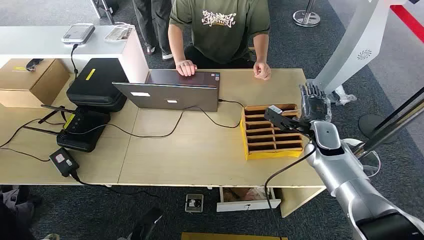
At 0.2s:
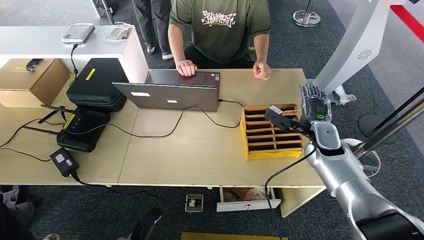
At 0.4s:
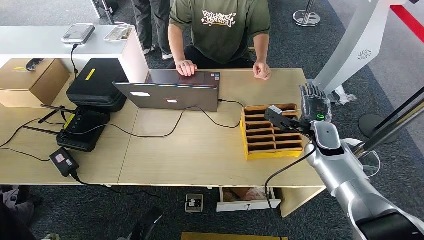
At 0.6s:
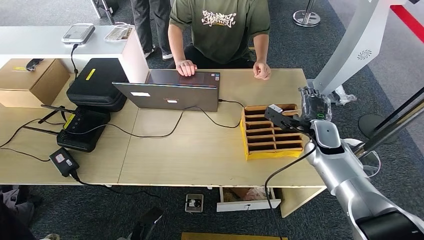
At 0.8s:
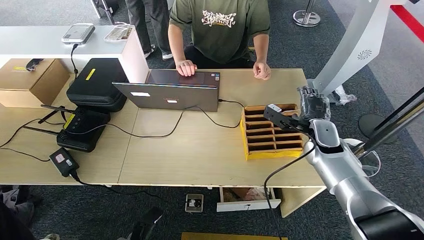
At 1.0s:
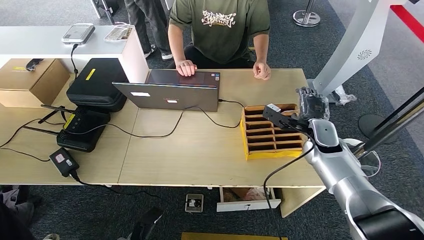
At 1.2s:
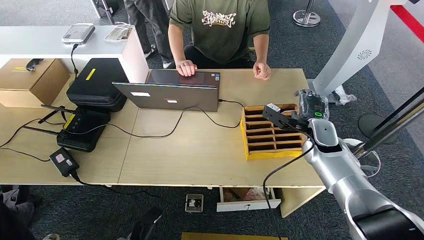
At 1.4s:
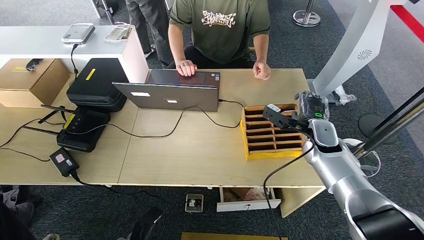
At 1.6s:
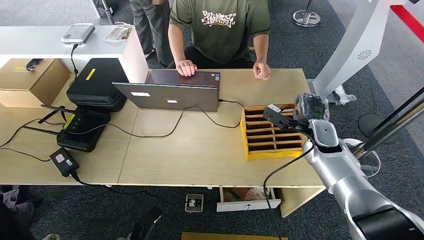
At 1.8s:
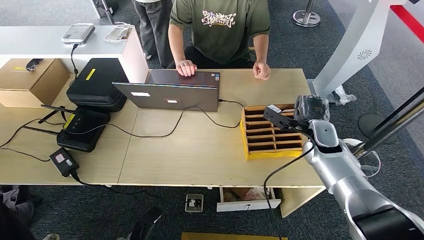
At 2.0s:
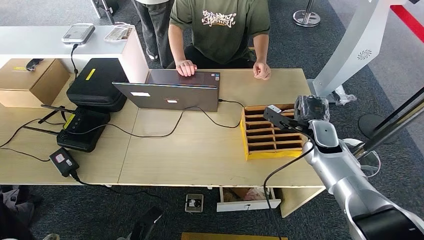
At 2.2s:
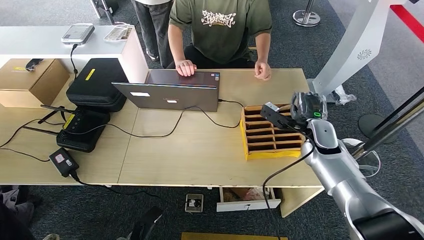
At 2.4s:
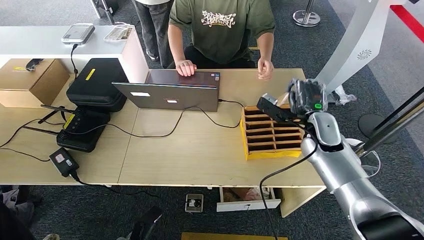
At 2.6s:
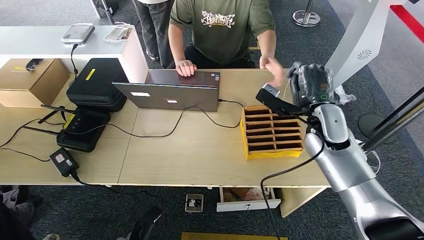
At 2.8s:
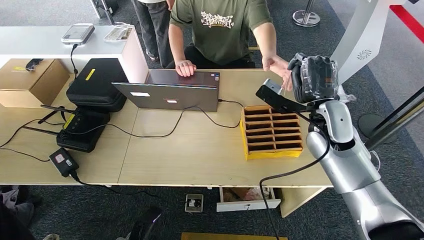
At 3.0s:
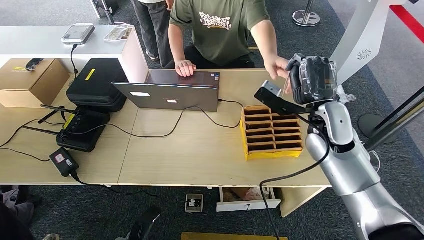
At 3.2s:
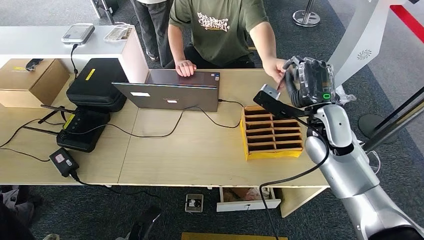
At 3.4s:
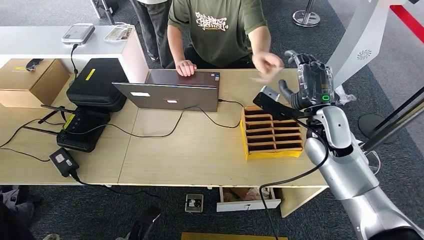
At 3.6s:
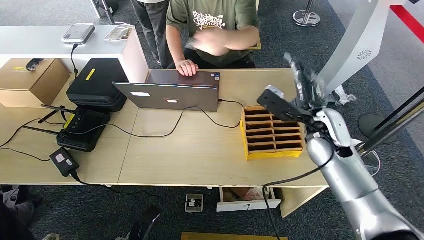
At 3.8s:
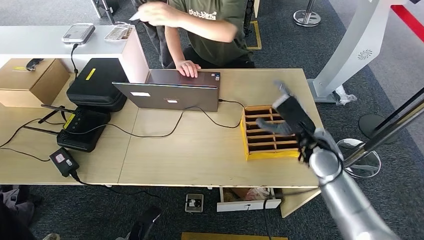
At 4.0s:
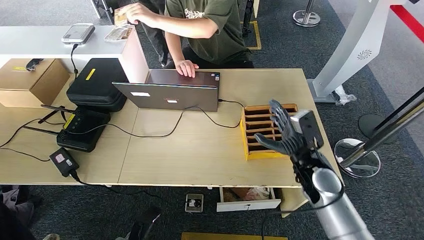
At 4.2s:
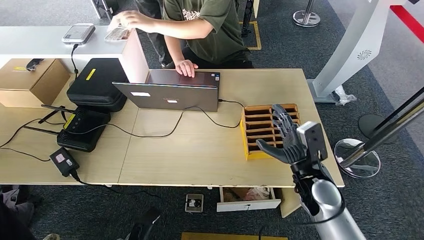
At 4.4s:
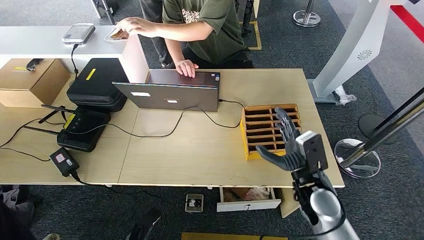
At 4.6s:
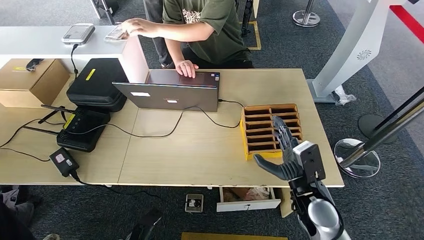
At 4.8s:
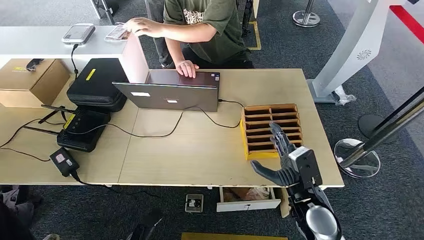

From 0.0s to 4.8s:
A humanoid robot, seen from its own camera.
Step, from 0.0s to 2.4s: Pick up the key card from the card box.
Step, from 2.8s to 4.6s: Hand the key card to the target.
From 1.6s to 3.2s: The right hand travels upward by roughly 10 cm.

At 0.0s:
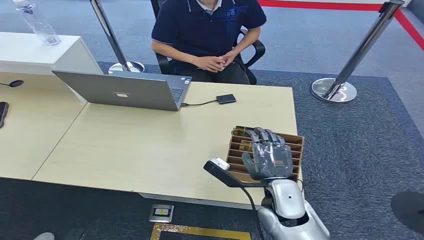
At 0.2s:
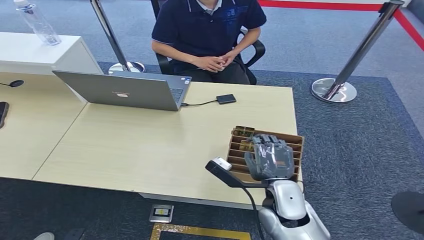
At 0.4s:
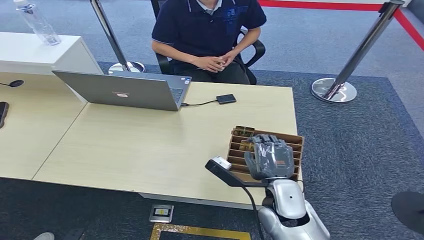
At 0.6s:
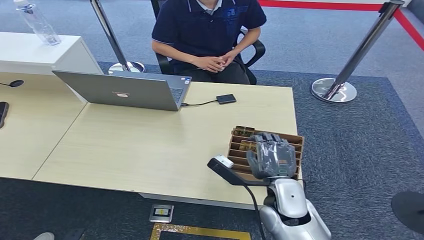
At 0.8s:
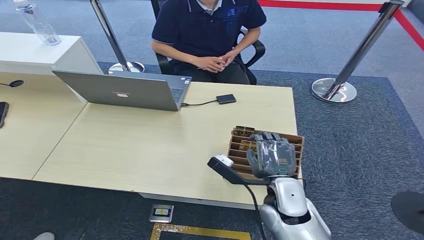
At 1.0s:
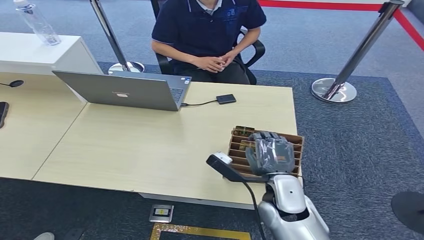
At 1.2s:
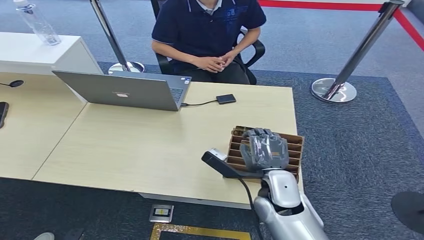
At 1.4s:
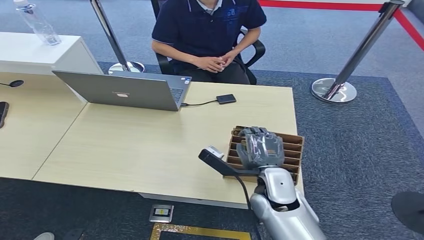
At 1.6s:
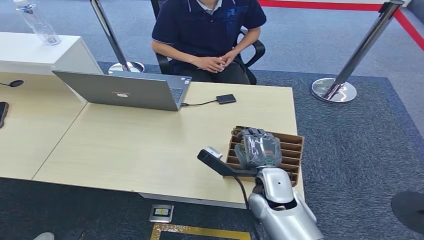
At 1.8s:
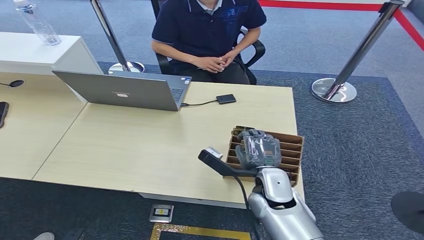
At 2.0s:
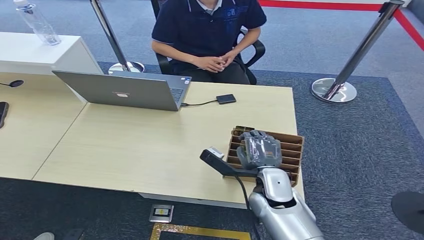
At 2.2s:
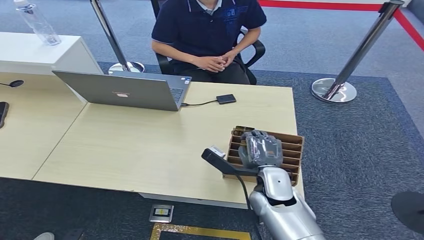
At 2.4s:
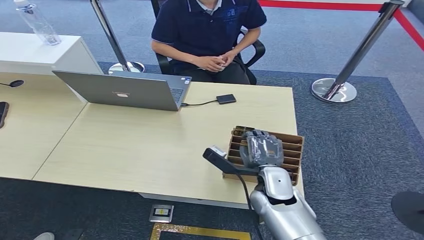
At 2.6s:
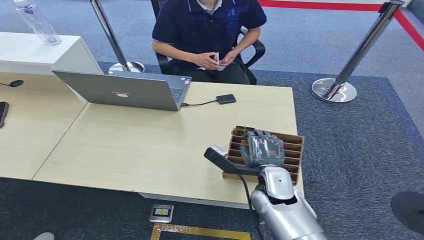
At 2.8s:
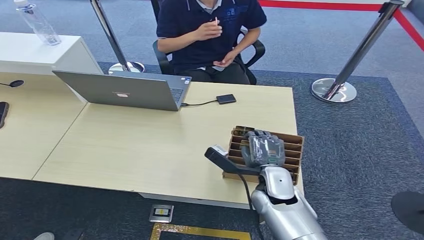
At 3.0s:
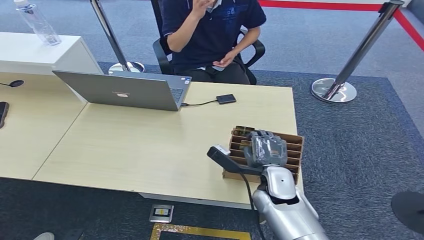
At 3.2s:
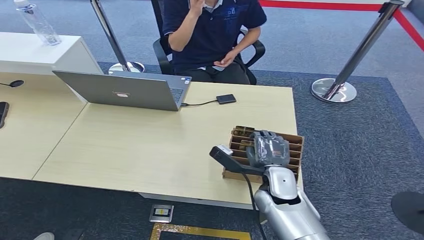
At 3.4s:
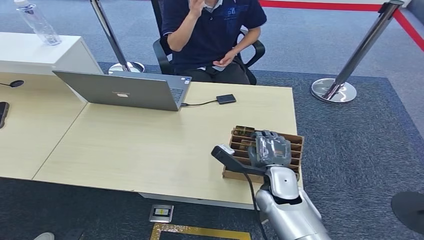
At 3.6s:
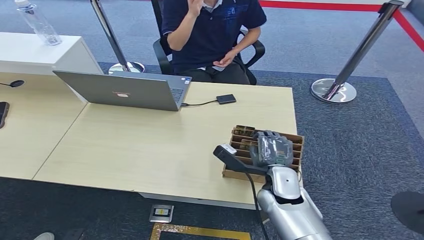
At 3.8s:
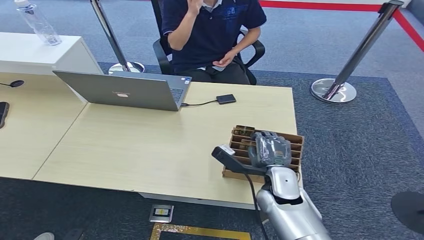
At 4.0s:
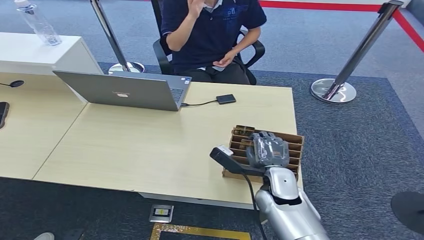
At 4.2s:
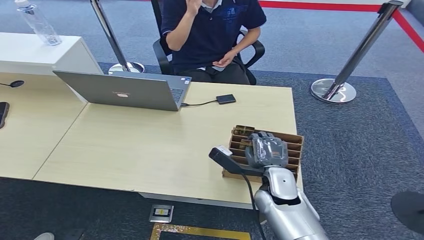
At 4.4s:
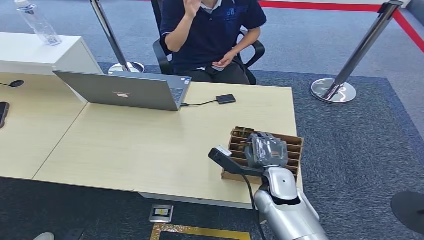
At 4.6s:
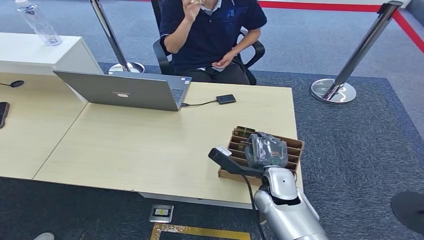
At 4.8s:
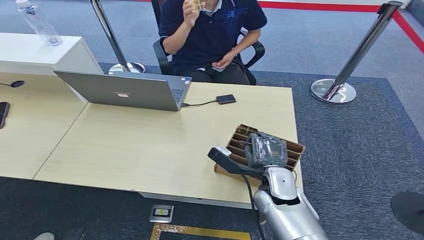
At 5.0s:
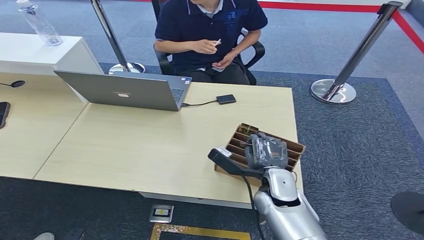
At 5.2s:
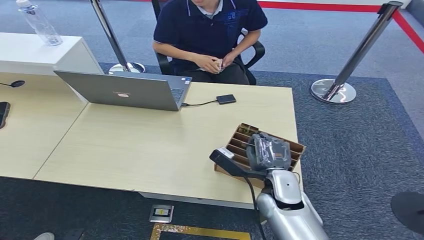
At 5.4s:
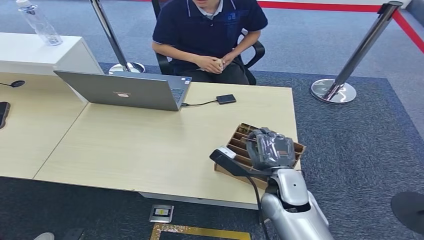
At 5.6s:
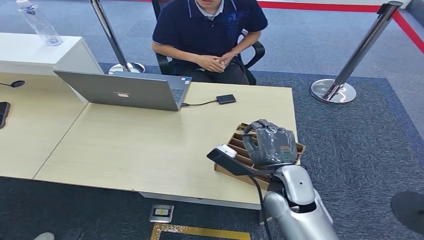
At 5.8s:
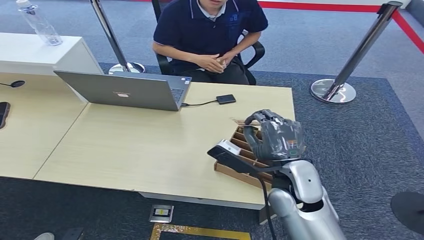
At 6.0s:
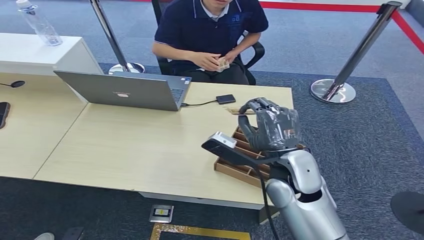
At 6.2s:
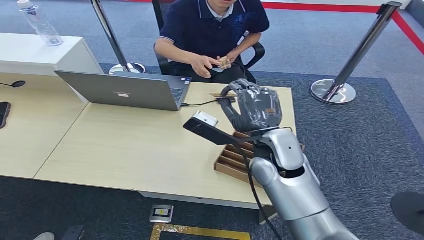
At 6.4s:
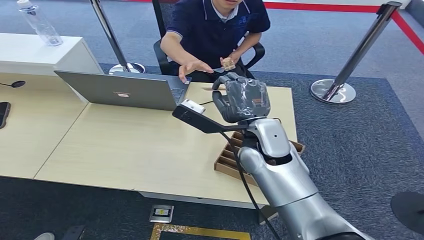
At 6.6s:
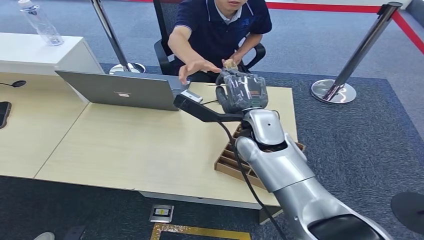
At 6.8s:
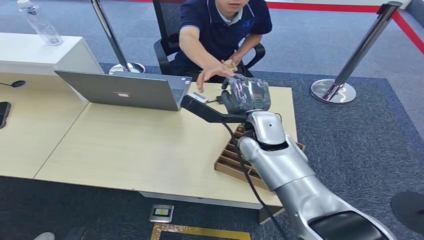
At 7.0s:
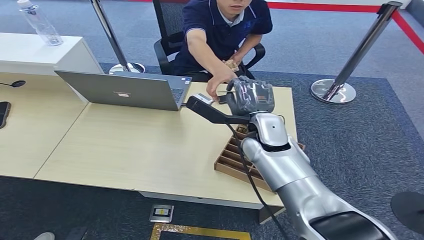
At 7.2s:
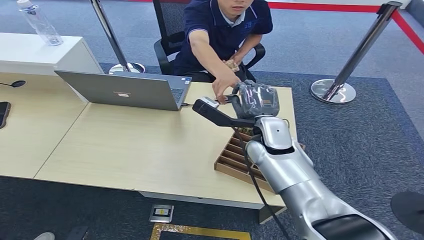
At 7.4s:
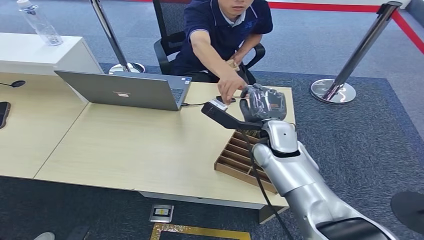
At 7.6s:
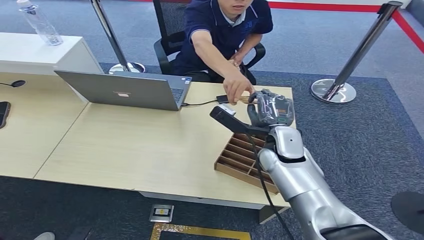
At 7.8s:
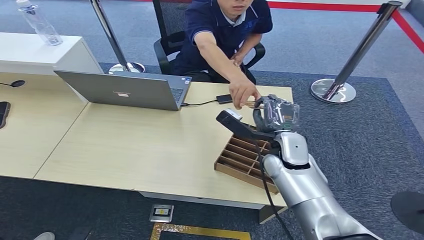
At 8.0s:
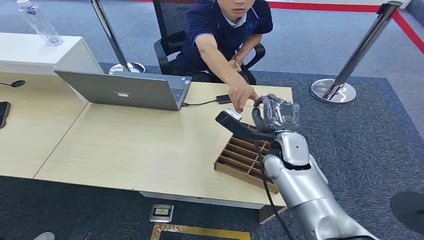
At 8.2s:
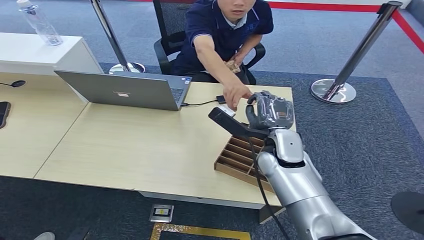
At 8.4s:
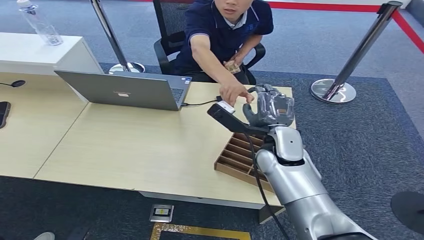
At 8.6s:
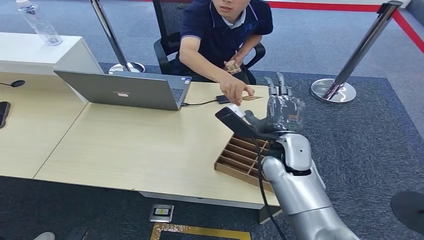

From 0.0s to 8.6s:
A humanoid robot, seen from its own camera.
Step, from 0.0s to 6.2s: Pick up the key card from the card box.
Step, from 6.4s to 8.6s: Hand the key card to the target.
From 1.4s to 2.8s: The hands make only small movements.
From 2.8s to 4.4s: Both hands stay put.
From 4.4s to 5.8s: The right hand shifts roughly 10 cm upward.
From 5.8s to 7.2s: The right hand shifts approximately 10 cm forward.
From 7.2s to 8.6s: The hands make only small movements.

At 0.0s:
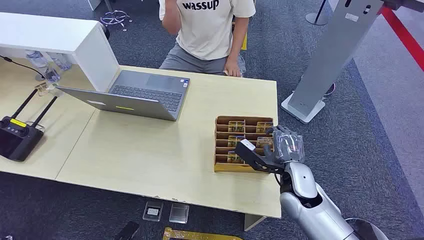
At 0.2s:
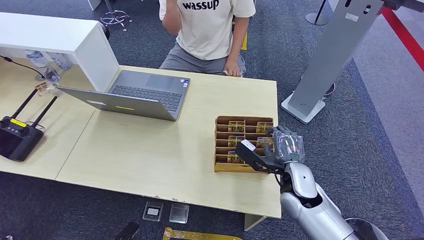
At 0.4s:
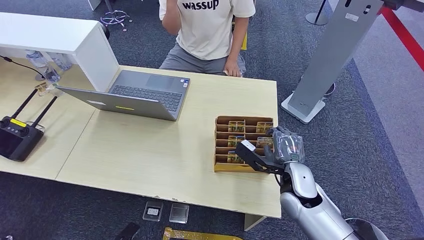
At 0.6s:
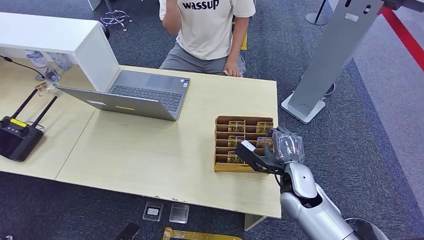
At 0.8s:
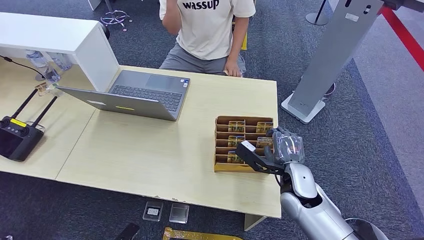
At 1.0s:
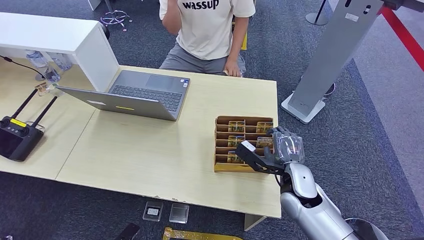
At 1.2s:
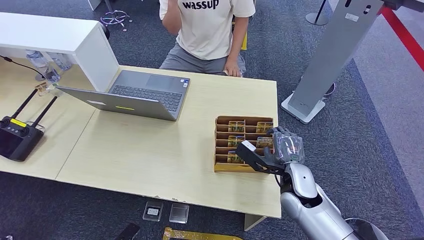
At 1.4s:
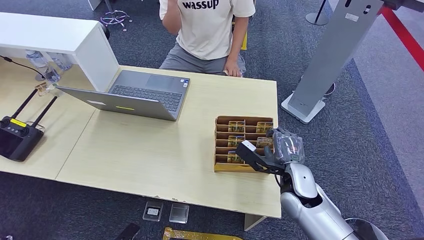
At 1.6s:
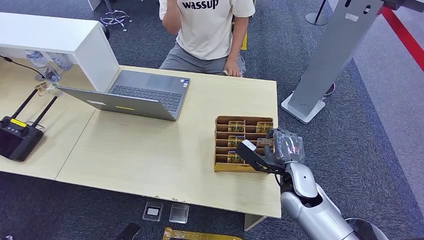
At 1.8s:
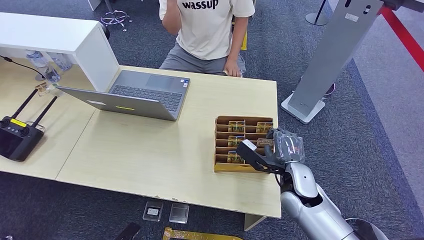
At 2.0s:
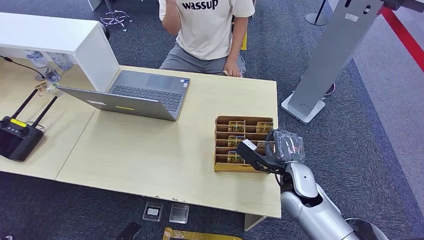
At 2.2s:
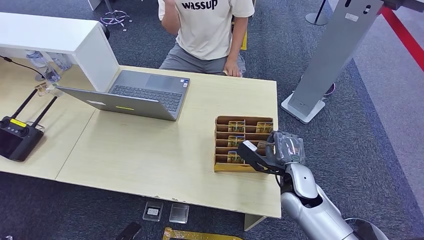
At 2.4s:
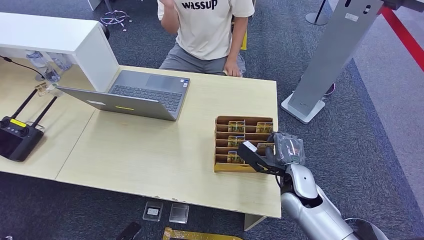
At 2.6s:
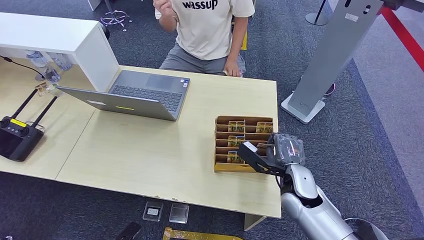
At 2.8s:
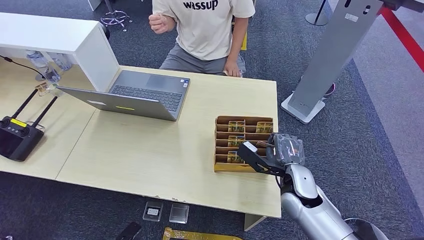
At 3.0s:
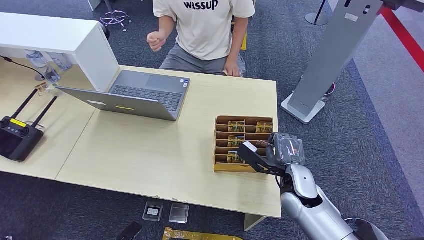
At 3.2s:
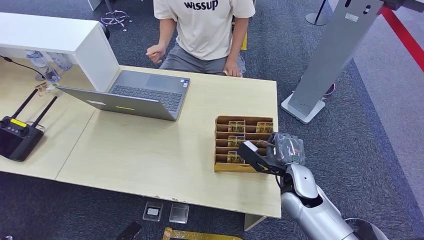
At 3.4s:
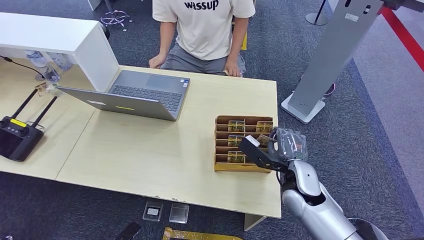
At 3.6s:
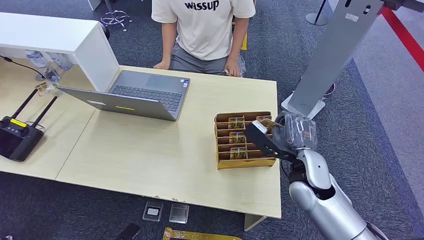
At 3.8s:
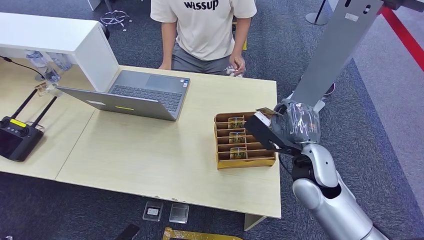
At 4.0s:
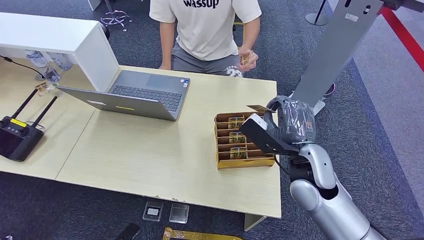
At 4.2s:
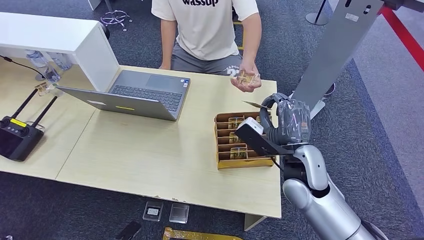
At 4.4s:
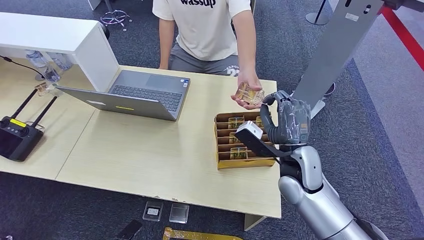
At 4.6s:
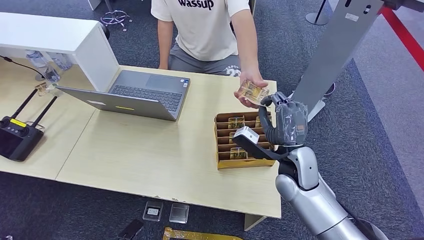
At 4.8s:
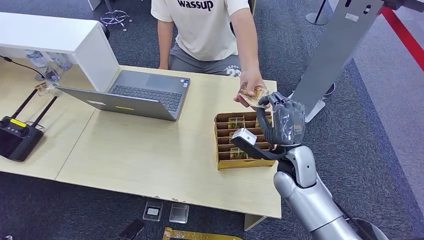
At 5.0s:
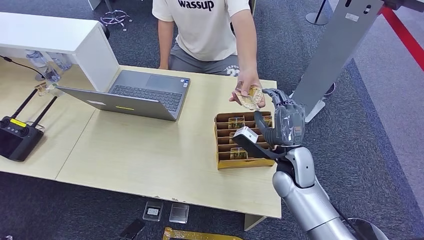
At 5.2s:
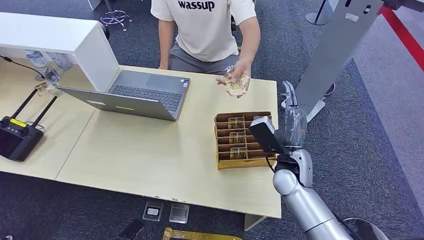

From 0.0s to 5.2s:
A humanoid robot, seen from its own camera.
Step, from 0.0s to 3.4s: Pick up the key card from the card box.
Step, from 4.0s to 5.0s: Hand the key card to the target.
From 1.8s to 3.4s: Neither hand changes place.
From 3.4s to 5.2s: The right hand moves about 10 cm upward and comes back.
